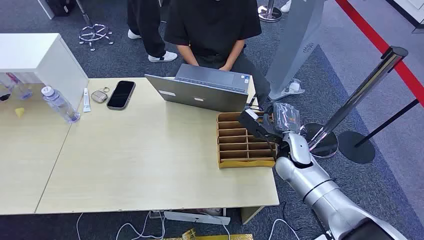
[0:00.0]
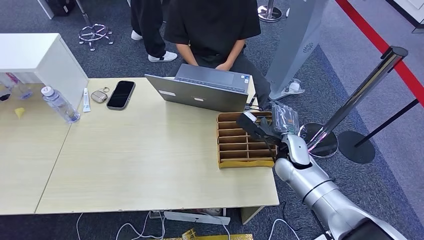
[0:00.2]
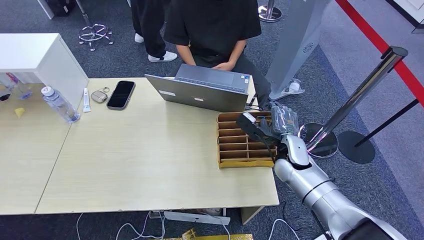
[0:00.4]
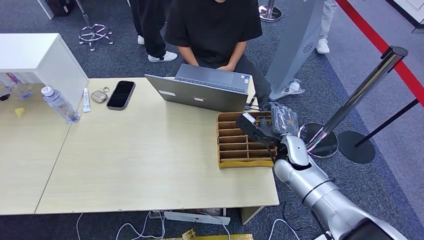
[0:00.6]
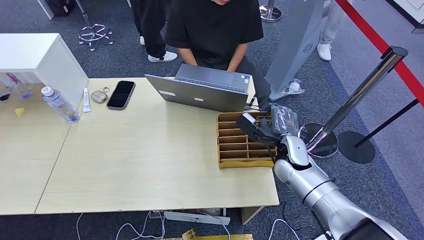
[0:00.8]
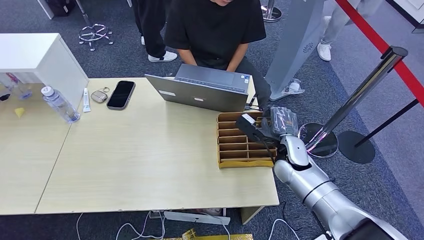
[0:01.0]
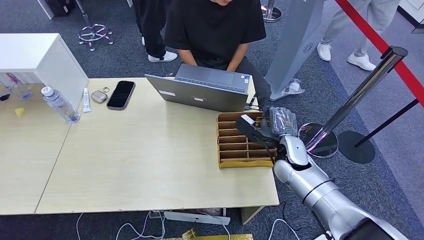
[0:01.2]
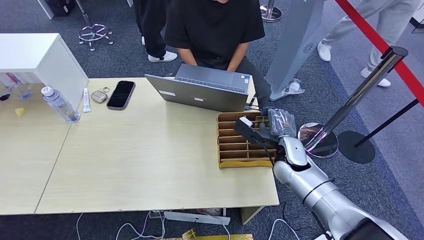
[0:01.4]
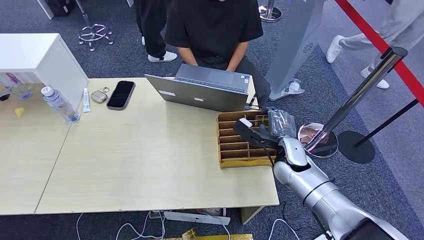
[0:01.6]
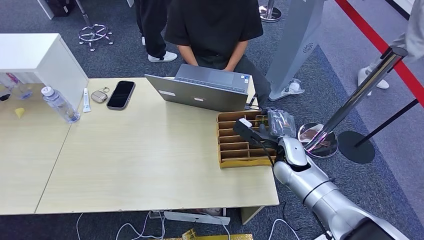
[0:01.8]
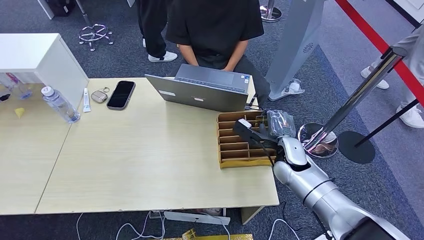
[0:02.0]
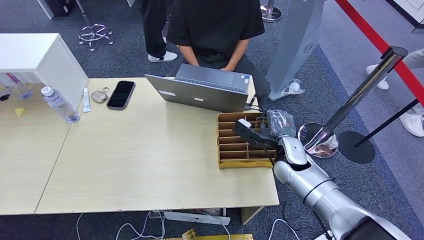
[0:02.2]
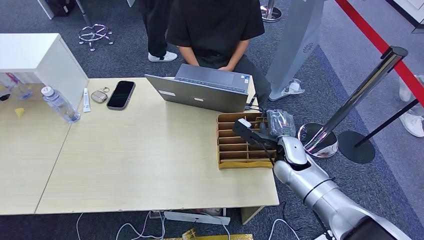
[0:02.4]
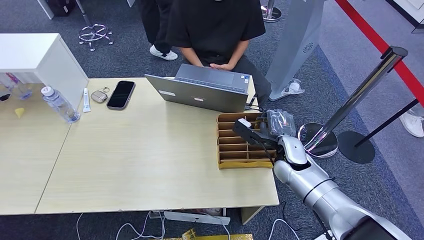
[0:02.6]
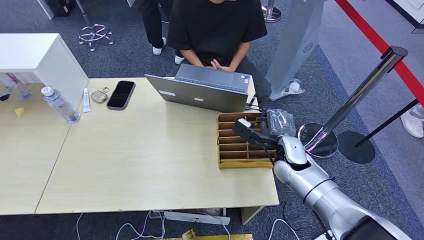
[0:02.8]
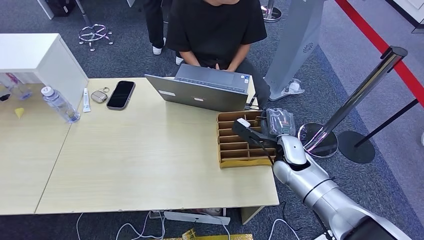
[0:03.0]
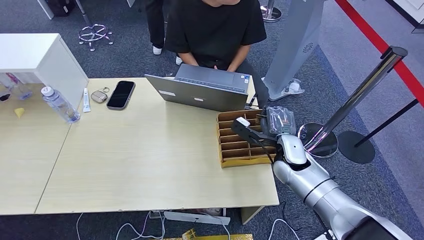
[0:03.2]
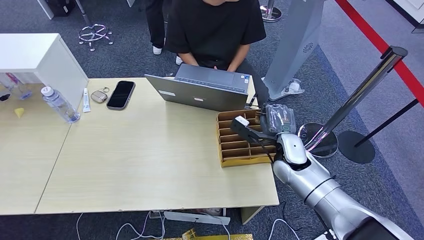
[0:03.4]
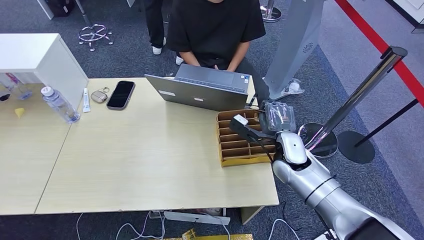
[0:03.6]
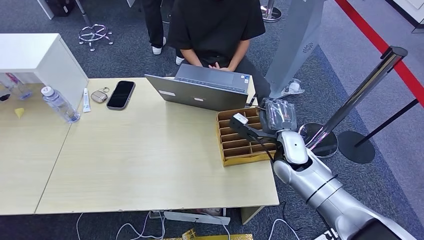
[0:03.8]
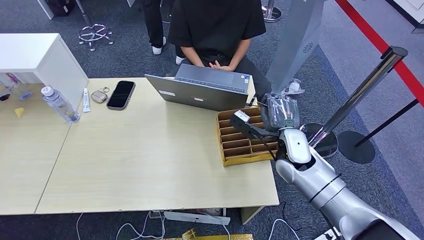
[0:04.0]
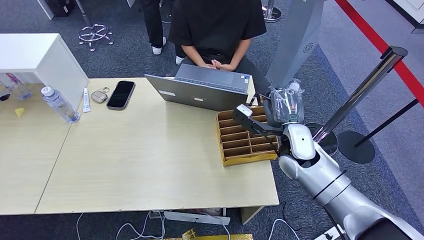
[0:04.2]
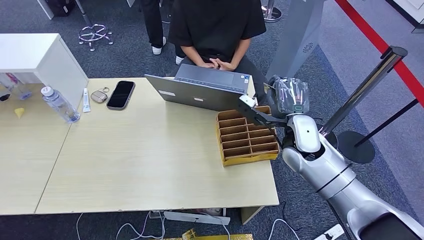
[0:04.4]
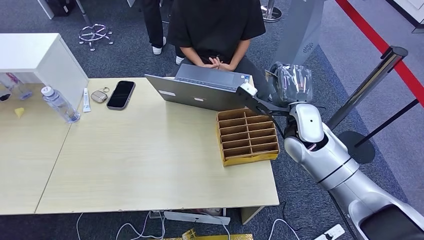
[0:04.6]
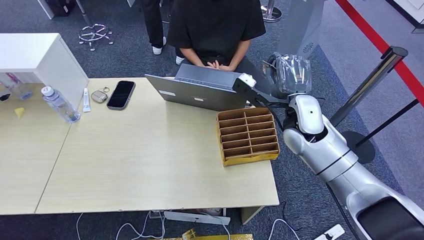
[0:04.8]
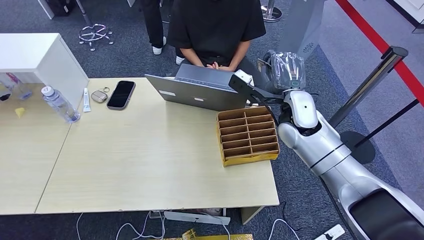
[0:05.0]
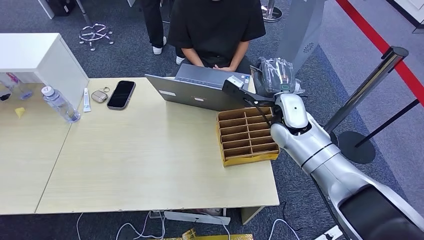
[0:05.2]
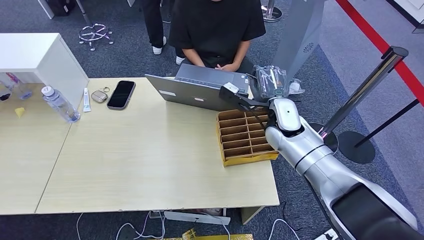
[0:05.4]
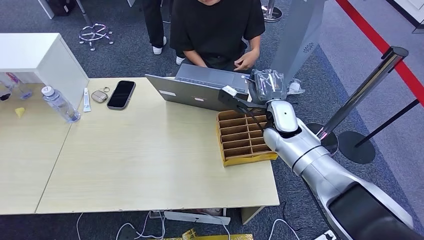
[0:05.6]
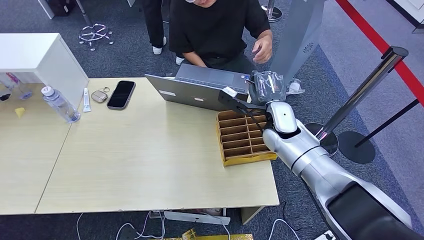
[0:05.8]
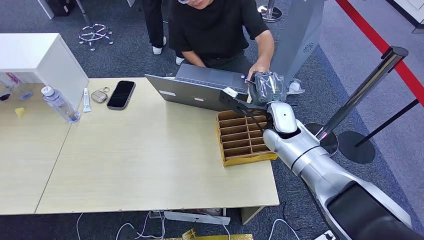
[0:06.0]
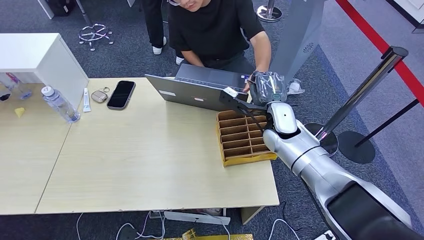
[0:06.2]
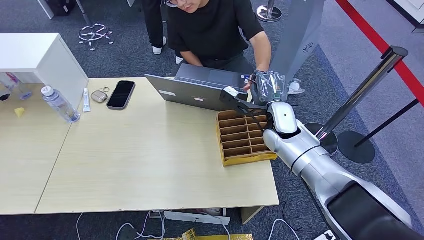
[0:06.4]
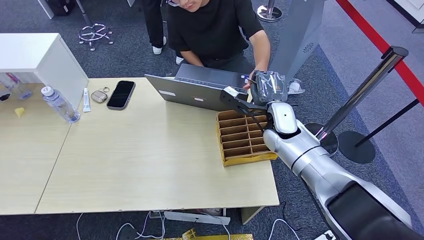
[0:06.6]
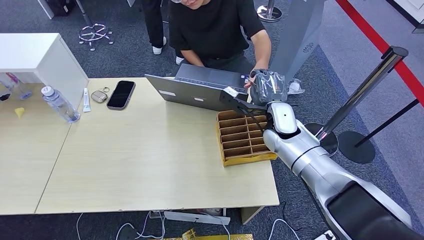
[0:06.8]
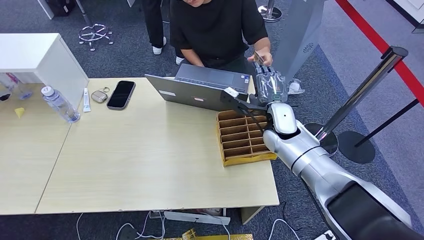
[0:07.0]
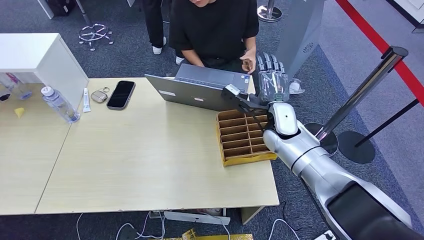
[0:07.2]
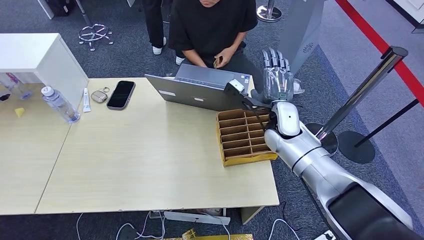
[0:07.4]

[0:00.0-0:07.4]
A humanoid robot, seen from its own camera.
Step, 0:00.0 to 0:03.8: Pick up the room card from the card holder.
Step, 0:04.4 to 0:07.4: Hand the room card to the target.
0:01.4 to 0:03.0: The two hands keep their place.
0:03.0 to 0:04.4: The right hand travels upward by about 10 cm.
0:04.4 to 0:06.0: The right hand goes roughly 5 cm forward.
0:06.0 to 0:07.4: The hands make only small movements.

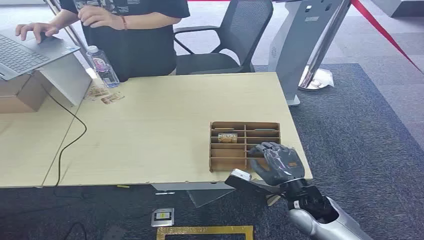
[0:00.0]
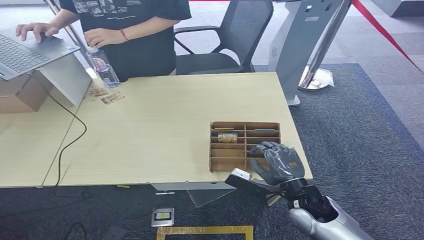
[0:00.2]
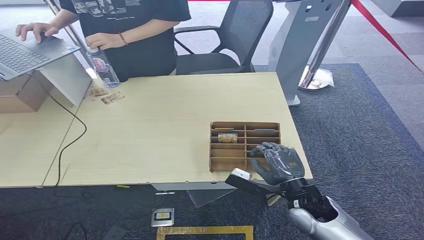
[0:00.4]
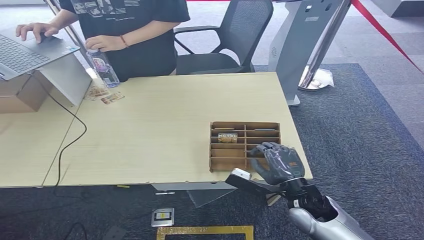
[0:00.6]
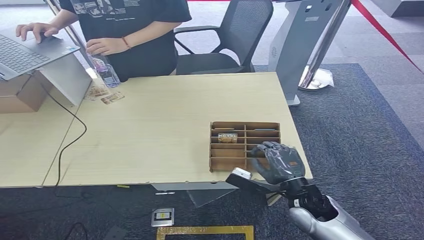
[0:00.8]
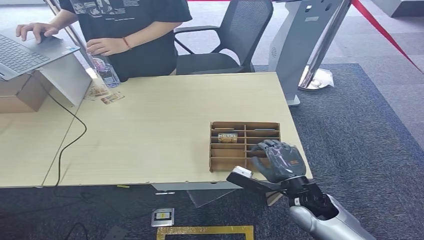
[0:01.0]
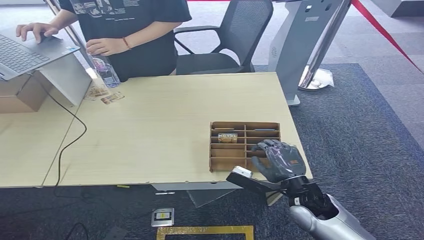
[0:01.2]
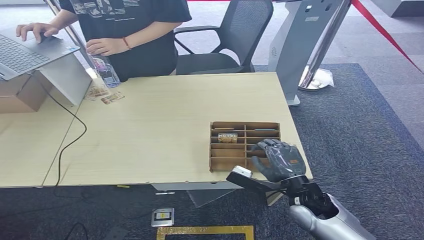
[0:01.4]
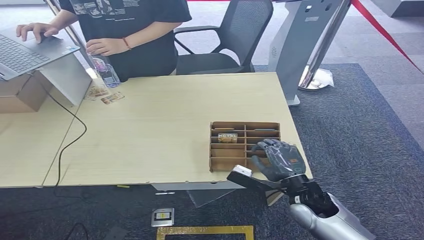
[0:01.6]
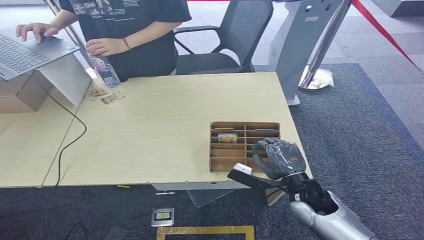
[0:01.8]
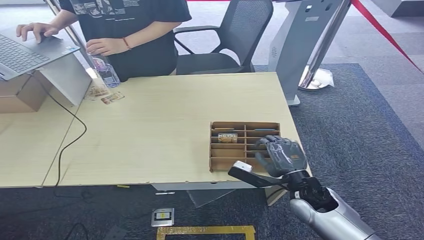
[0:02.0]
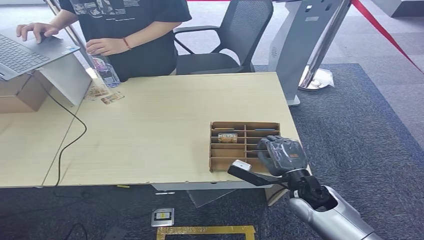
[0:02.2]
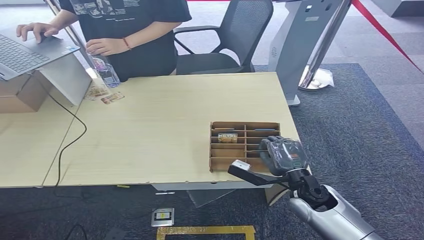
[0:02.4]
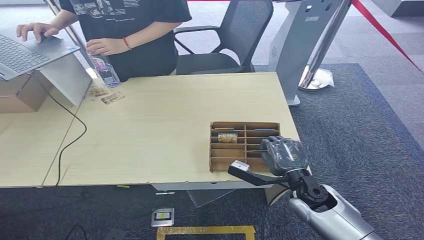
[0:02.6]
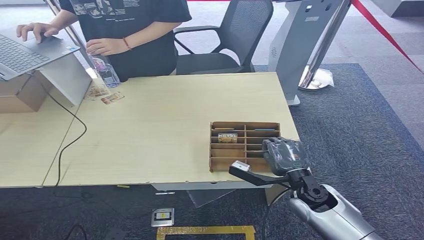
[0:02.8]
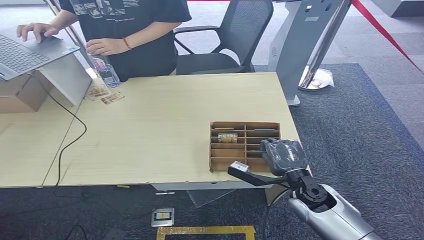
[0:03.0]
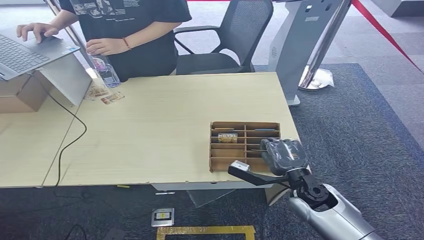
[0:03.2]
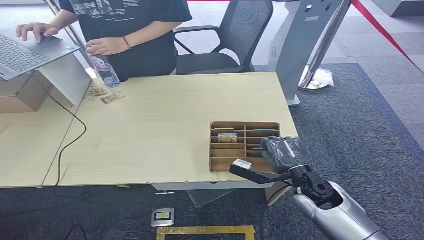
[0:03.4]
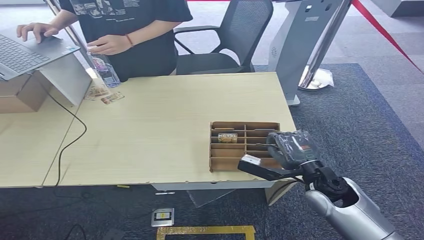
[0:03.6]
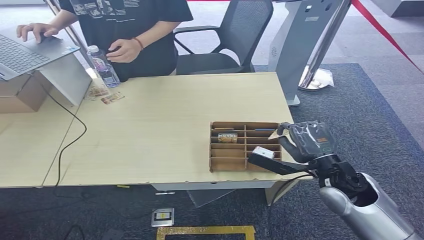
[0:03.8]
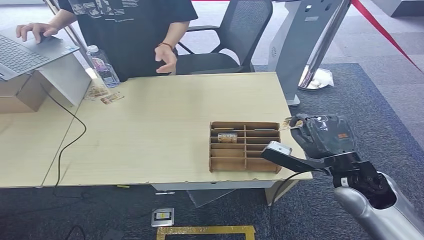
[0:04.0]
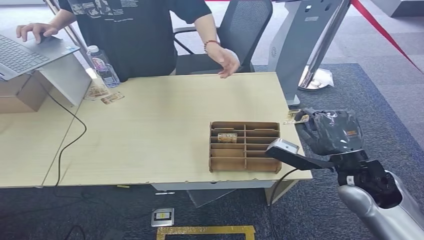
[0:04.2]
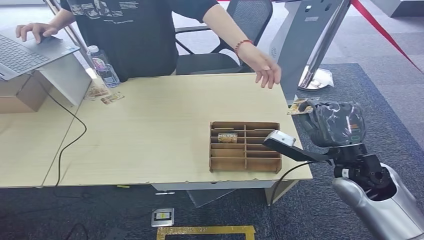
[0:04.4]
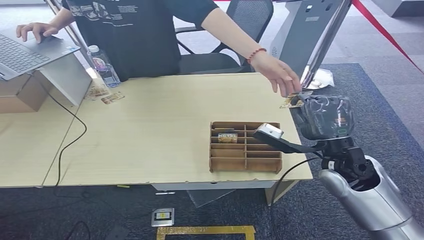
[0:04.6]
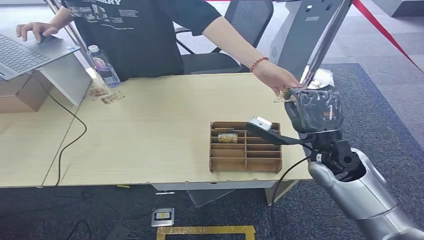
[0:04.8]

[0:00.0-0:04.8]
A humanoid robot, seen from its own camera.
Step, 0:00.0 to 0:03.6: Pick up the room card from the card holder.
Step, 0:04.0 to 0:04.8: Hand the room card to the target.
0:01.6 to 0:03.2: There are only small adjustments of the hands.
0:03.2 to 0:04.8: The right hand is displaced upward by approximately 10 cm.

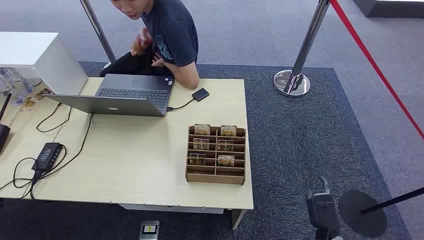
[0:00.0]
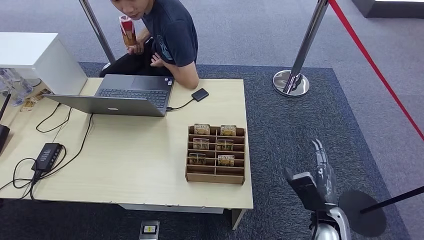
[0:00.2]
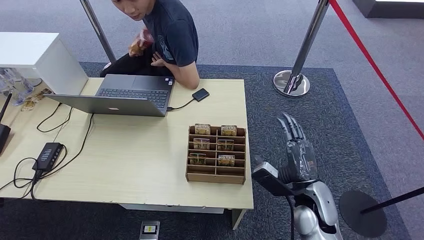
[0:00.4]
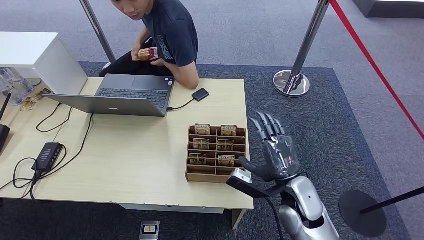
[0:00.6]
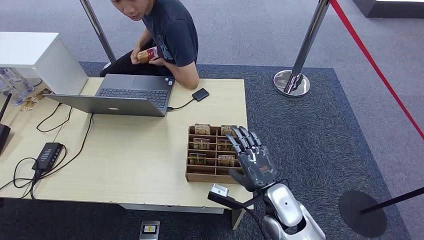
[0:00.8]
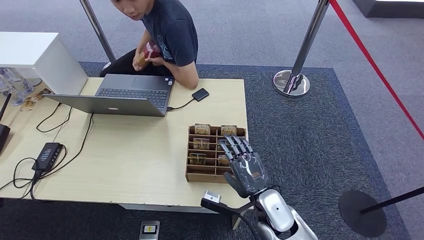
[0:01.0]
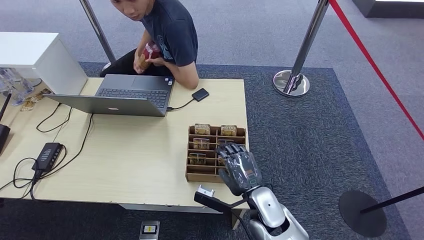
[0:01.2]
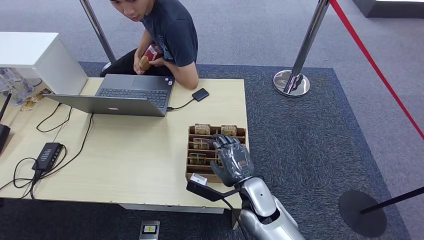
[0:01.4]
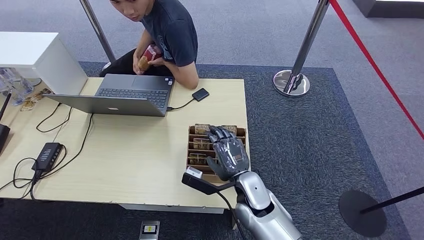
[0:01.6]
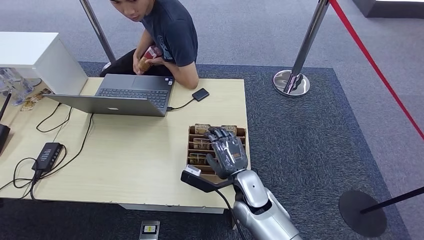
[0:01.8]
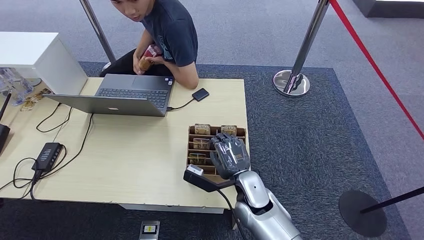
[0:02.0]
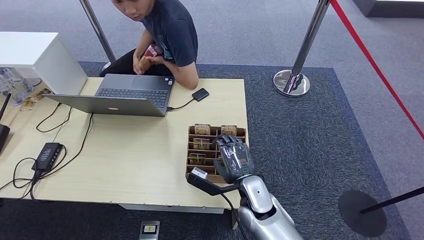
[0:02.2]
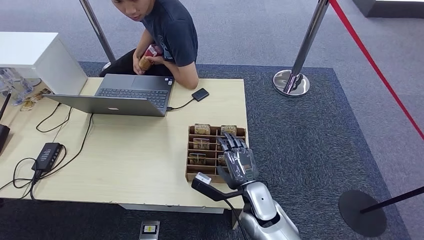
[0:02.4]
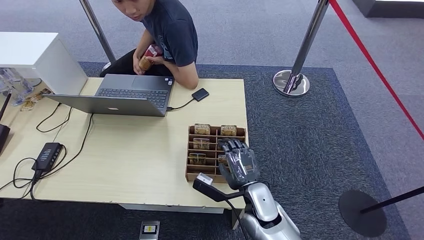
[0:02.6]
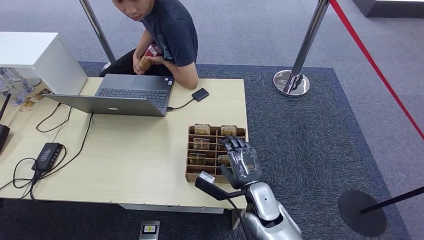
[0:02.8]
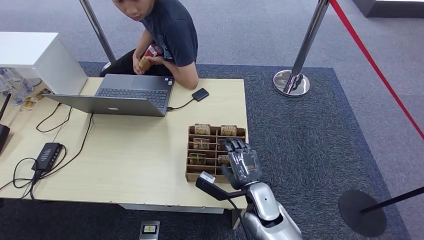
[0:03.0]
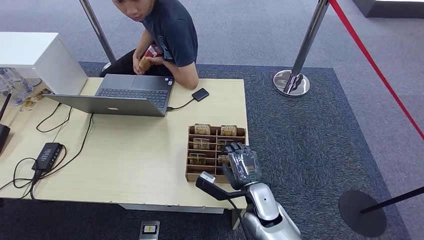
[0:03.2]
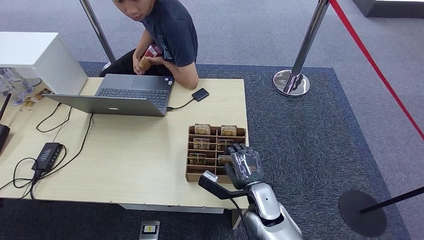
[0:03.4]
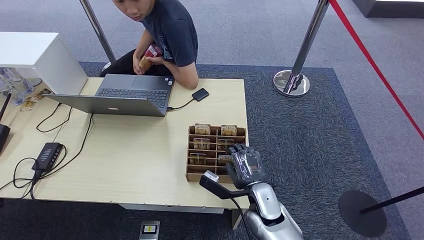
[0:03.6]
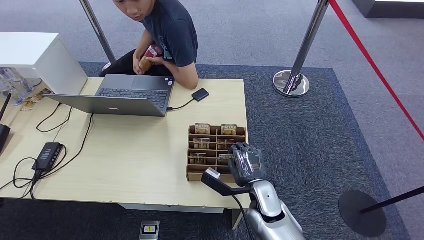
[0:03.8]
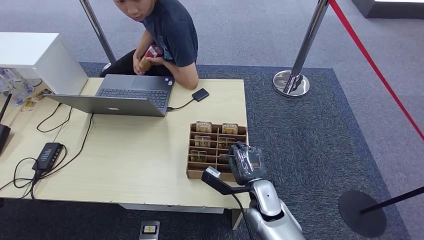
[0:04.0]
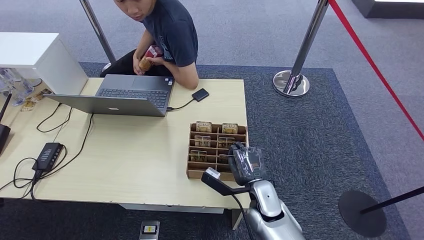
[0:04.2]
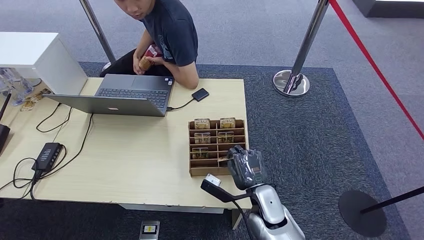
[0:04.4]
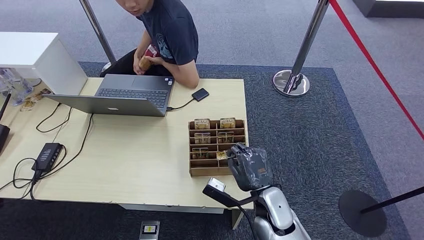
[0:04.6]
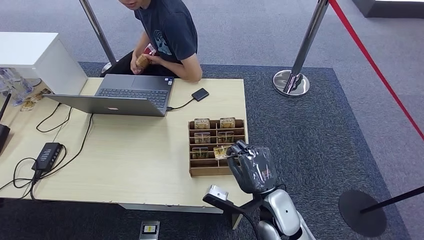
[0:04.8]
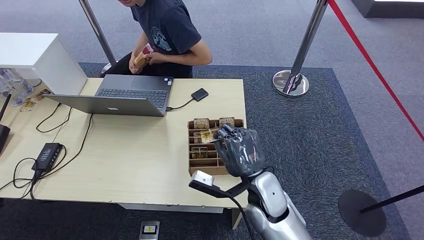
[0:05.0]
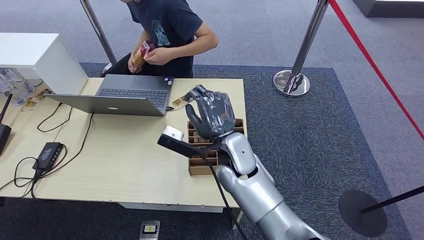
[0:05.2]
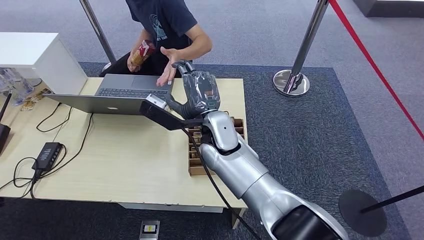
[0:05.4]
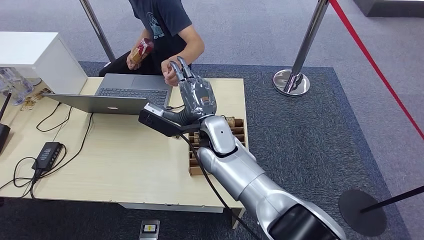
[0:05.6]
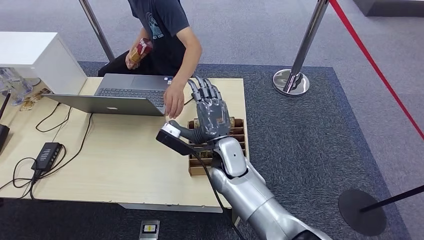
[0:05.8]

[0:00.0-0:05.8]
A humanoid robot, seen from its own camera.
Step, 0:00.0 to 0:04.6: Pick up the room card from the card holder.
0:01.4 to 0:04.4: The hands move only a little.
0:04.4 to 0:05.8: The right hand shifts approximately 15 cm upward, to the left and forward.
